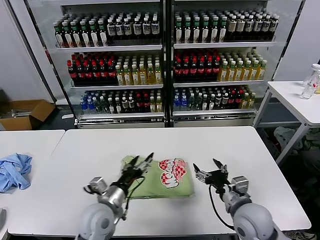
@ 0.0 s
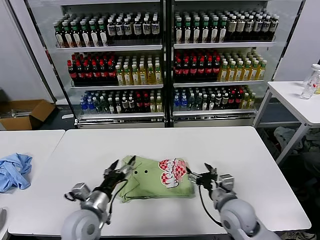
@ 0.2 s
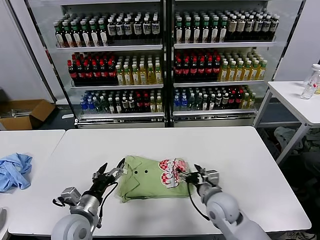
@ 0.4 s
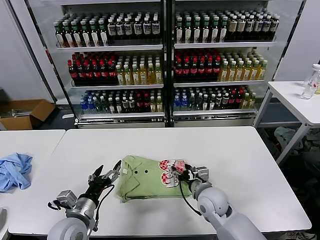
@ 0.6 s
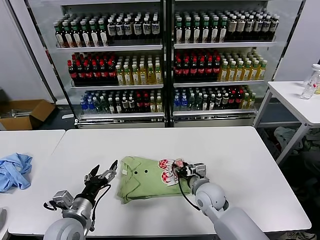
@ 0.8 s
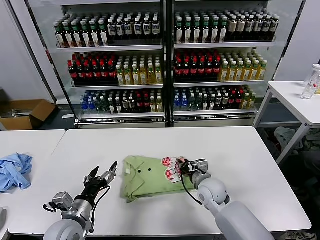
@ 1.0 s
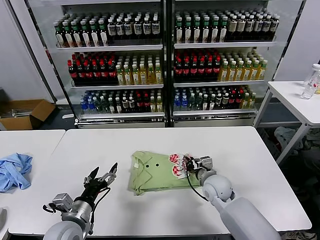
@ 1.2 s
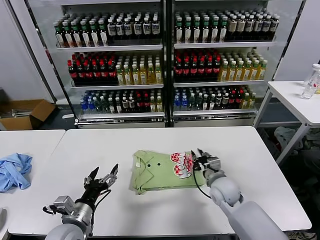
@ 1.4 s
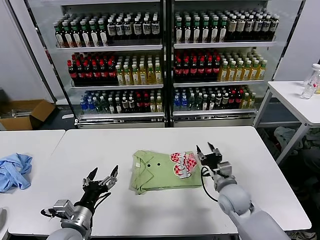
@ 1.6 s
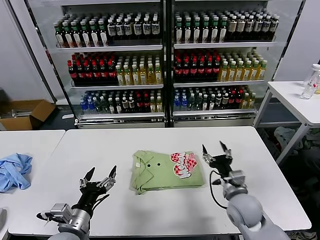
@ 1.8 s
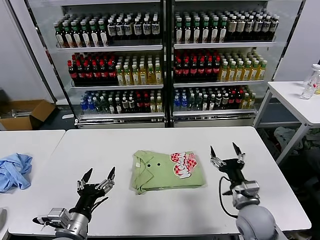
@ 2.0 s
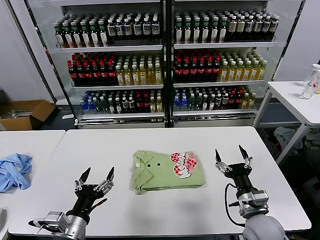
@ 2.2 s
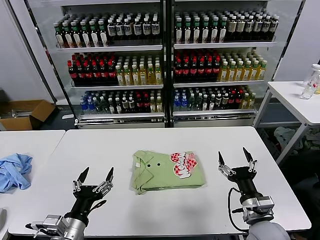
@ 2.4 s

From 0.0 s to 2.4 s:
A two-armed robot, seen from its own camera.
Task of the whole recording: fold and organize the clothes.
Step, from 0.0 s to 1.4 s: Drag the clothes to the center of the table.
From 0.0 s to 1.2 s: The right gripper heads forward, downward and to the left, covering about 15 cm, and closes its fingers; the left gripper moves to the left, roughly 10 cm.
From 1.2 s to 2.4 s: The right gripper goes approximately 20 cm backward and to the right, and opens up, while the left gripper moves backward, some 5 cm.
